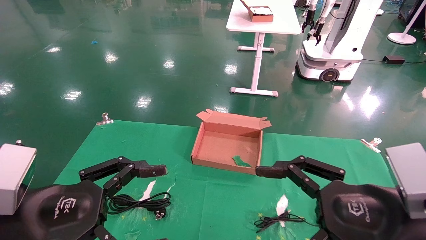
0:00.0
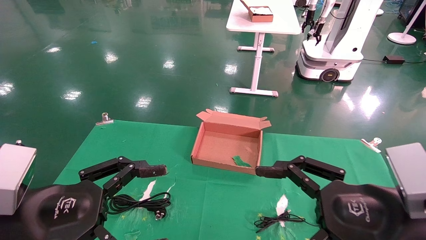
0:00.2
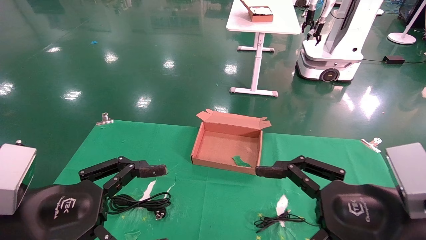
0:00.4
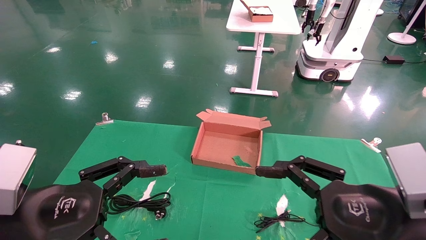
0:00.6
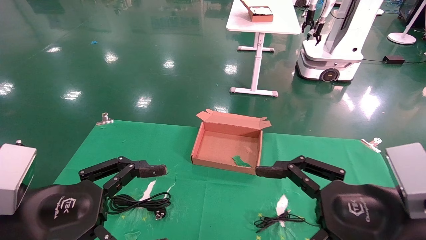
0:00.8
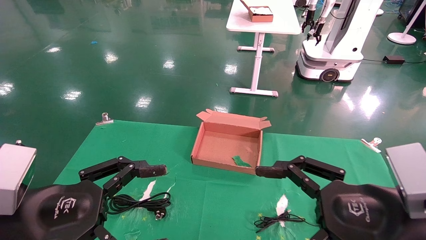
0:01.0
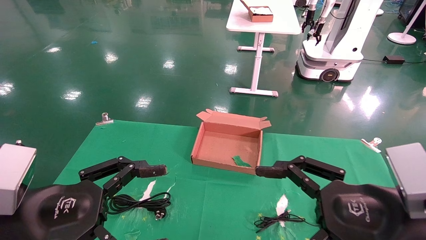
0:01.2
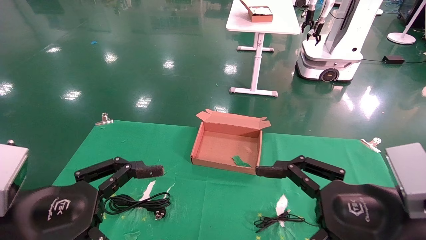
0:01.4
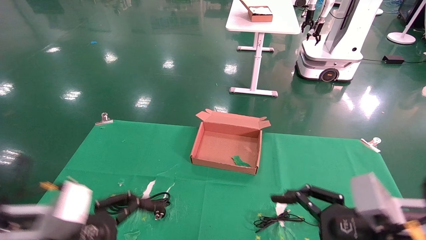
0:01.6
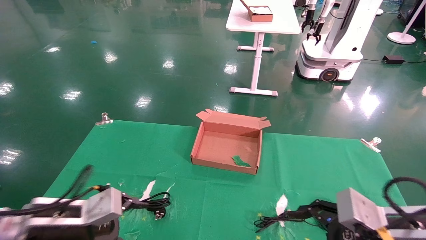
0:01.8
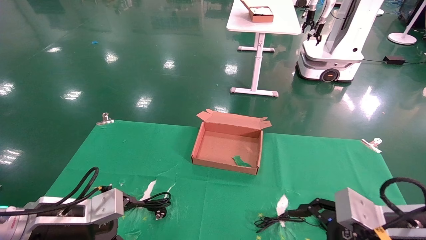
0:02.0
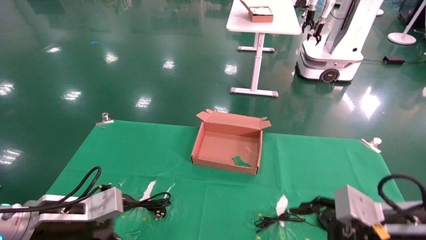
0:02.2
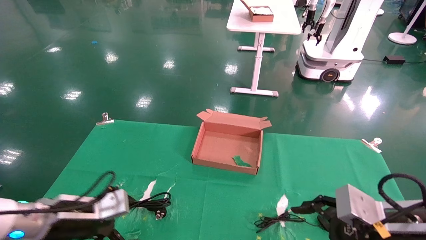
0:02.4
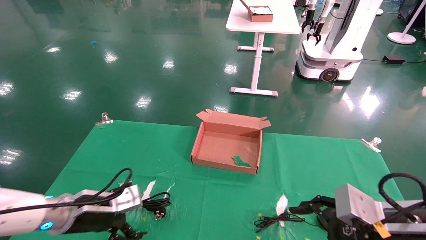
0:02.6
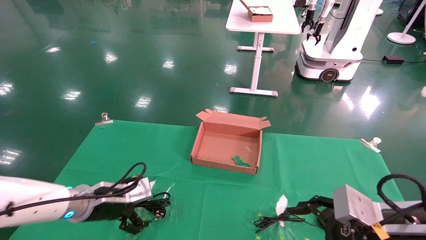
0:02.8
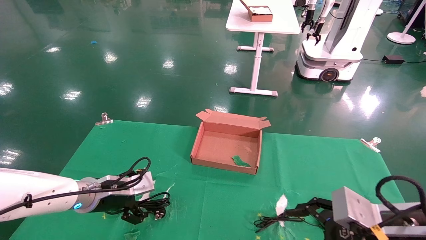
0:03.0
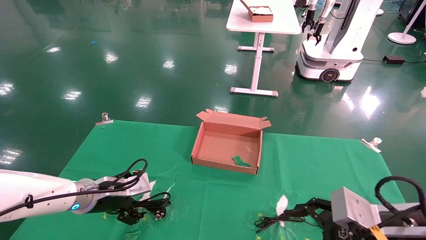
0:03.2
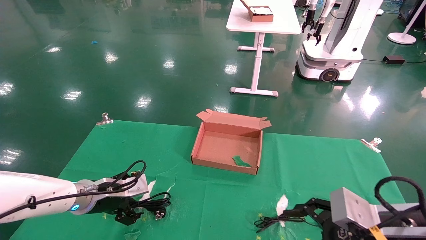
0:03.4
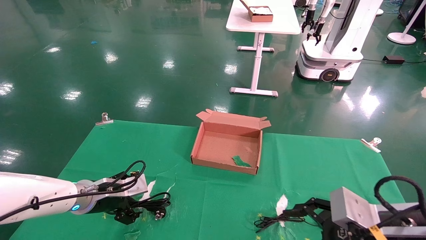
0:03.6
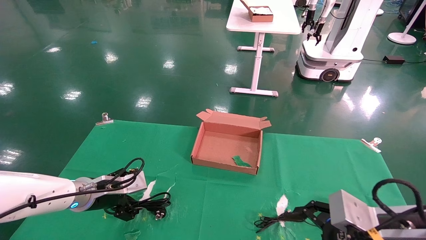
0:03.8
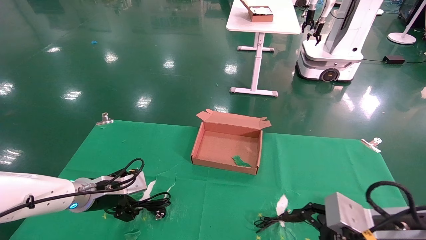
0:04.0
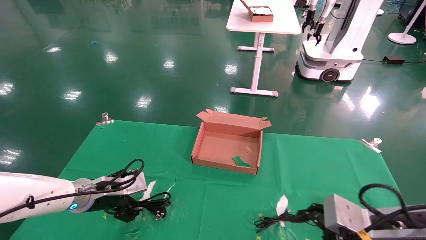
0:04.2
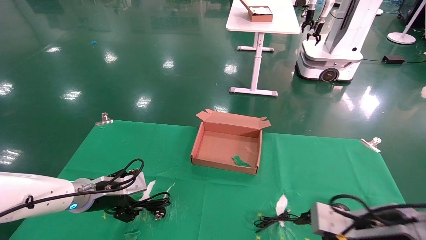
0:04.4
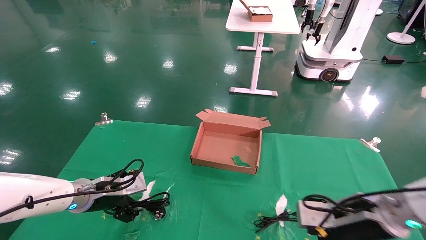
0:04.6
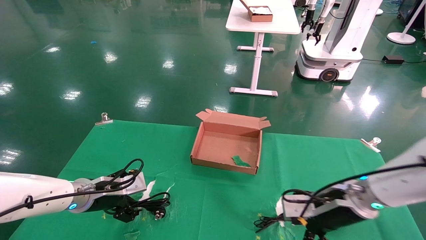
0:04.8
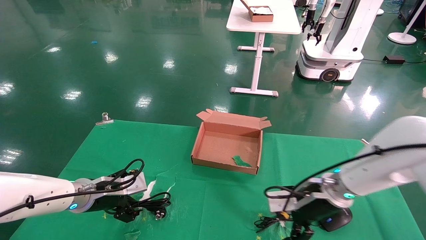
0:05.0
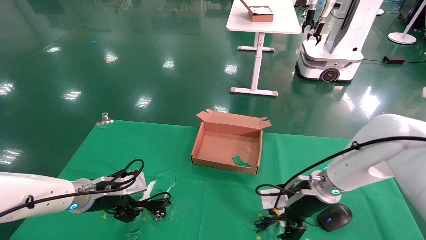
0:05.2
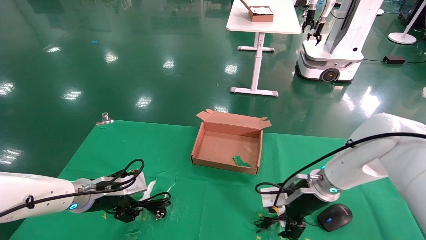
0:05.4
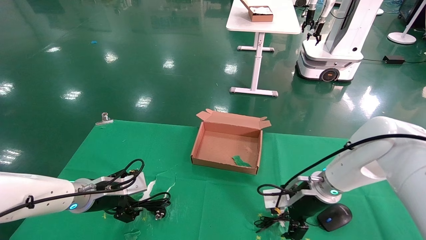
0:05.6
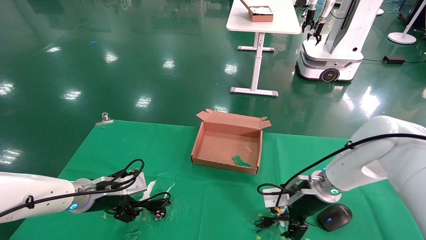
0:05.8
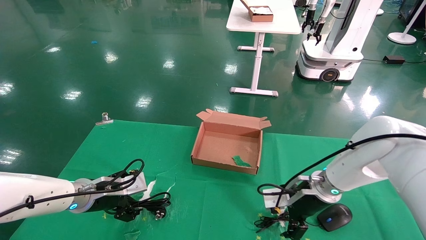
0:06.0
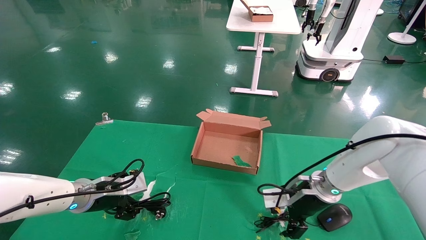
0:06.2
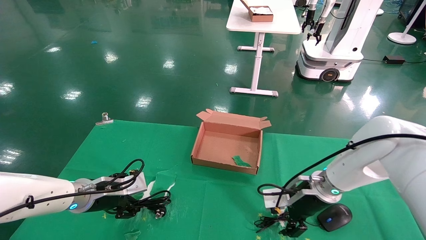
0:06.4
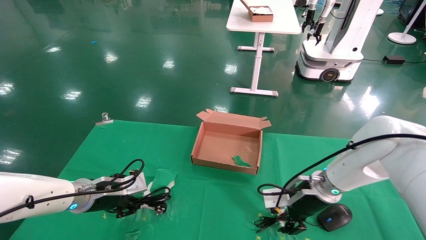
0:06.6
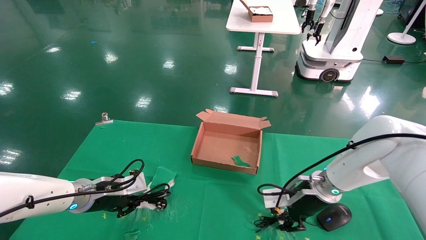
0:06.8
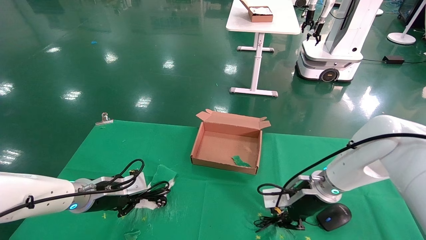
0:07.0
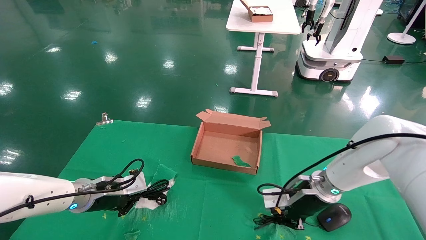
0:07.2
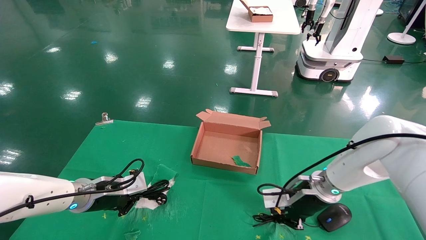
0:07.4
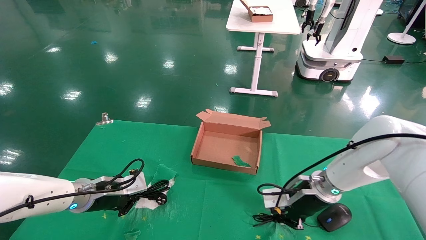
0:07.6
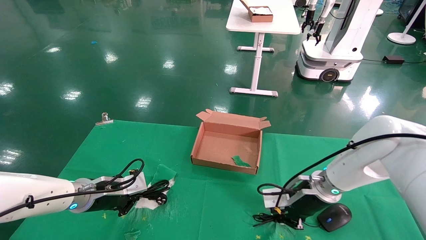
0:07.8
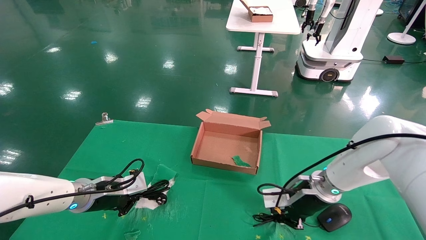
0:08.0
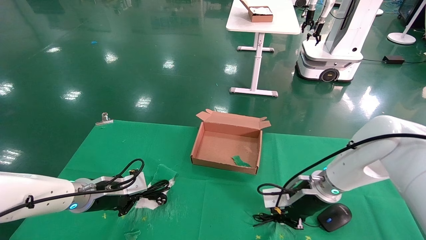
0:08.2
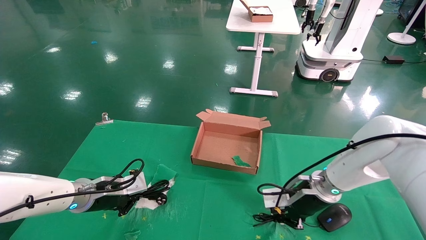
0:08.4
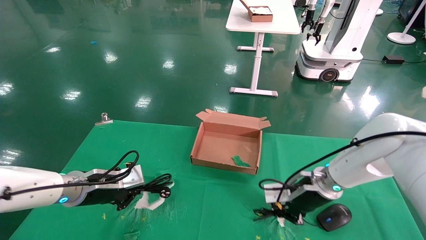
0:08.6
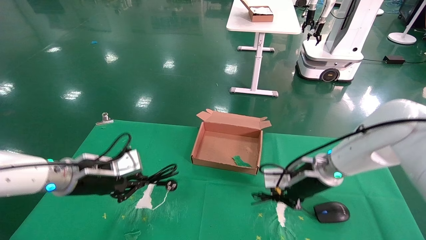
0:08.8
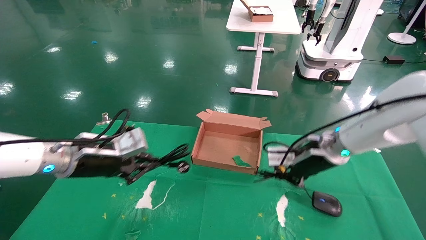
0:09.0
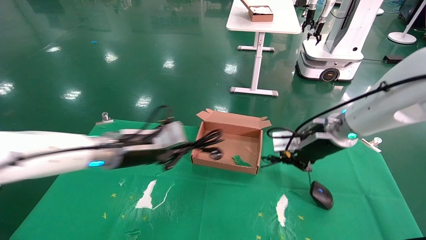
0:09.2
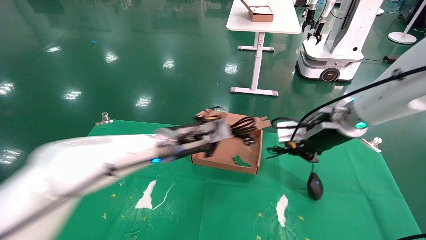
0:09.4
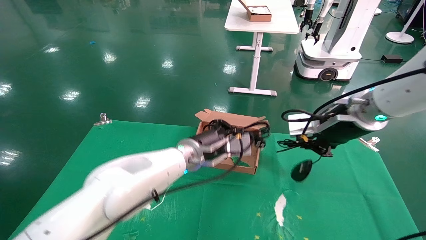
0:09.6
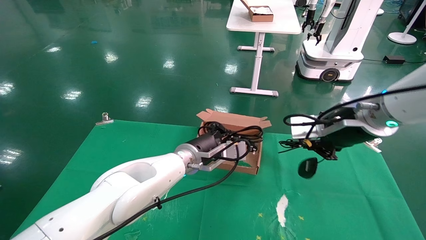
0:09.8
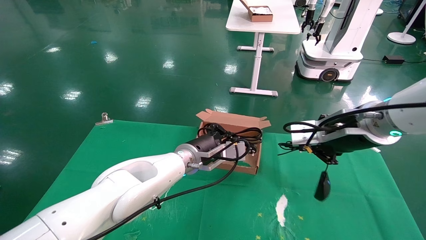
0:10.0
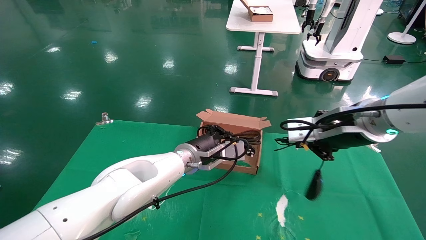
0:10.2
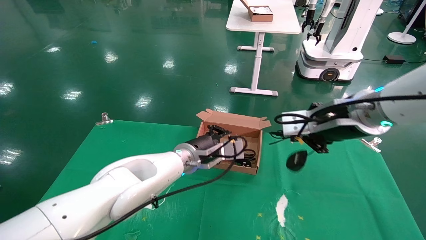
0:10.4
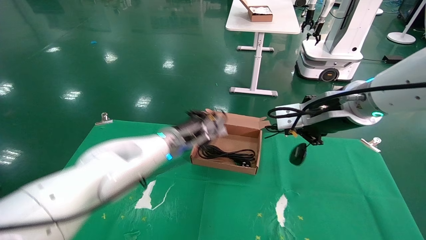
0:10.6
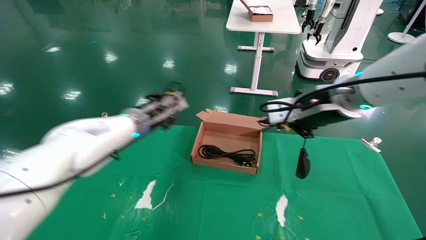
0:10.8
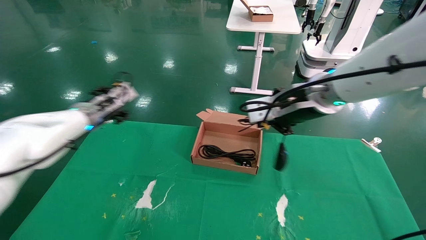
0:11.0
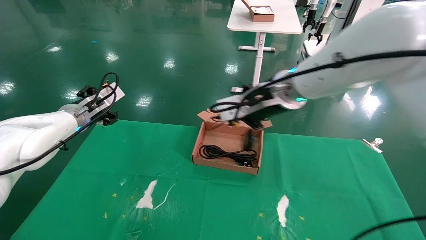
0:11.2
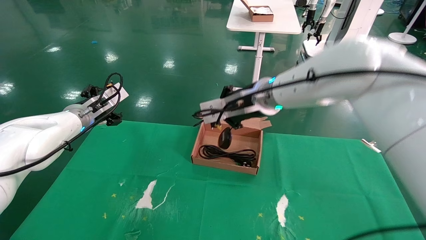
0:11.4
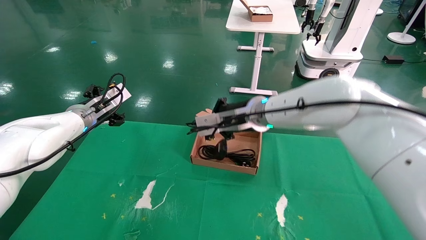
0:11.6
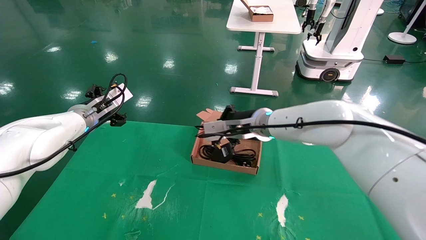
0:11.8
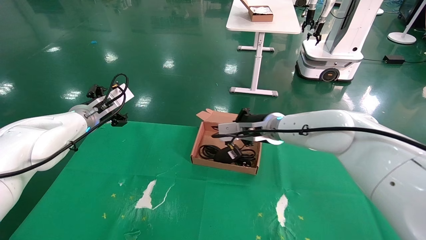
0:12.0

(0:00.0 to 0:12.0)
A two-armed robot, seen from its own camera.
Step, 0:01.6 - 0:06.4: Grab and lift both the mouse and power cord from the accessory packaging area at the same time.
0:00.0 - 0:01.6: The left gripper heads downward, covering approximately 5 cm.
0:01.6 - 0:03.0: The left gripper goes some 15 cm forward.
0:03.0 - 0:04.4: The right gripper travels forward by roughly 5 cm.
0:04.4 - 0:06.0: The right gripper heads forward and to the left, covering roughly 15 cm.
0:06.0 - 0:07.6: The right gripper closes its fingers, while the left gripper closes.
0:07.6 - 0:09.0: The two grippers go approximately 10 cm upward.
0:09.0 - 0:10.4: The left gripper goes about 20 cm to the right and forward; the right gripper heads upward and backward, covering some 15 cm.
0:10.4 - 0:12.0: The right gripper shifts approximately 20 cm forward, to the left and downward, while the left gripper moves to the left, approximately 25 cm, and opens.

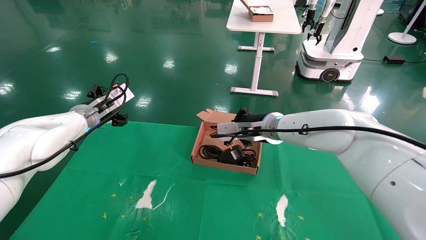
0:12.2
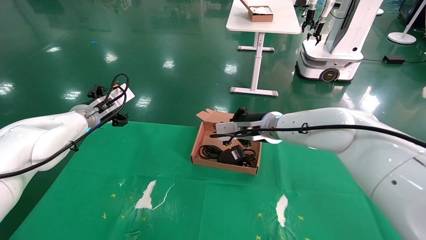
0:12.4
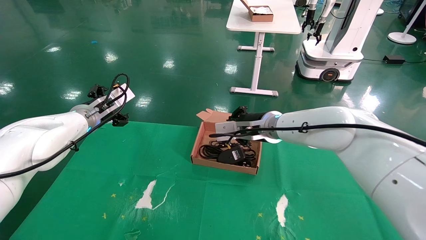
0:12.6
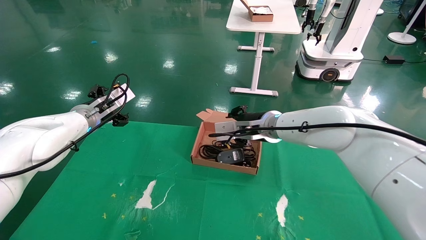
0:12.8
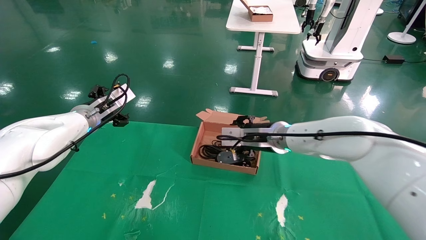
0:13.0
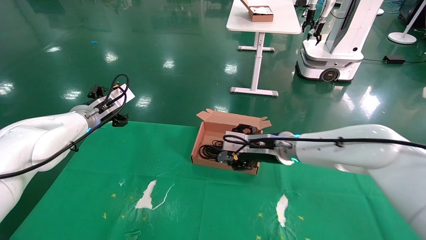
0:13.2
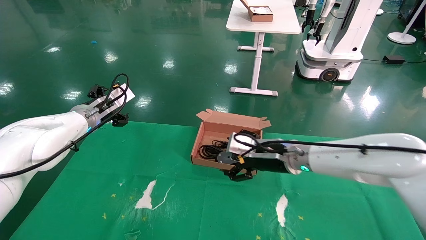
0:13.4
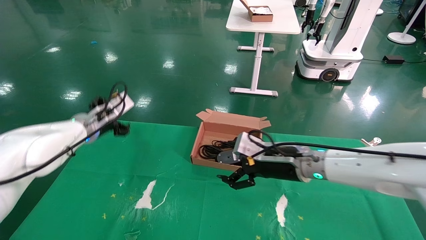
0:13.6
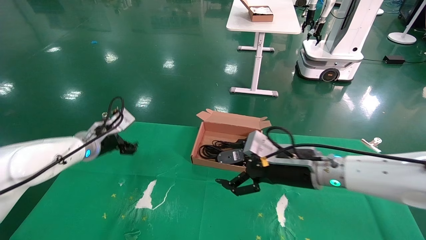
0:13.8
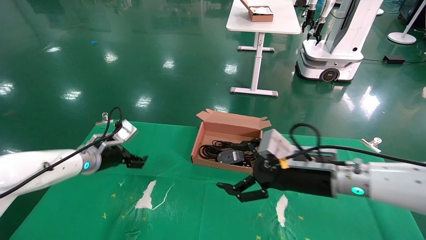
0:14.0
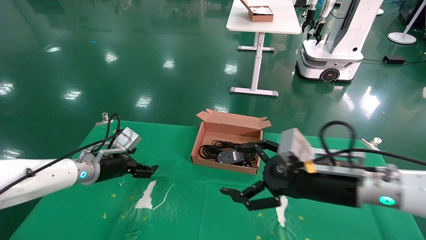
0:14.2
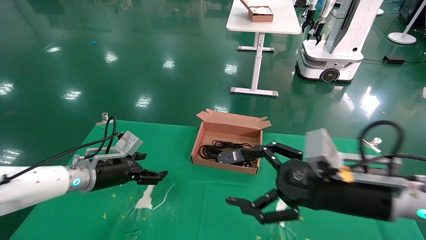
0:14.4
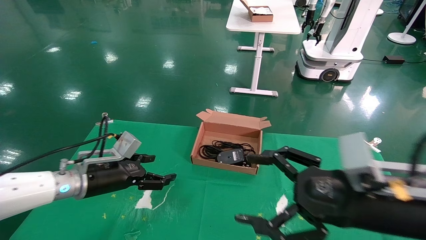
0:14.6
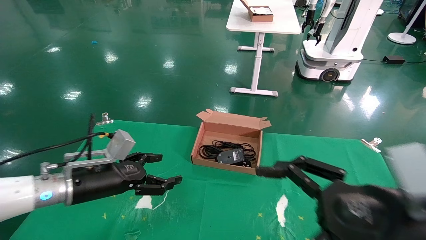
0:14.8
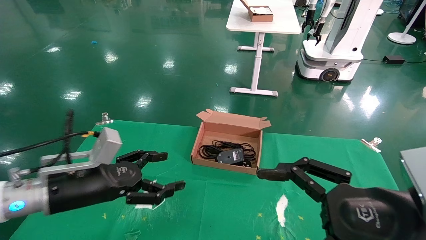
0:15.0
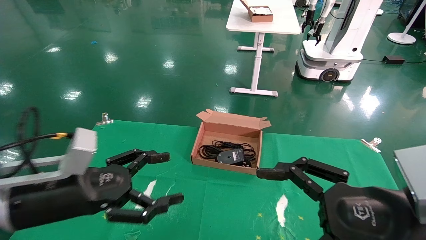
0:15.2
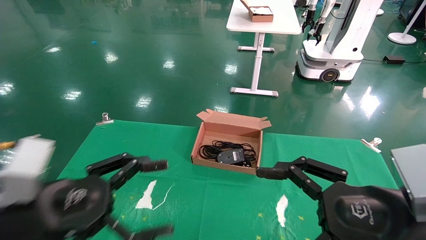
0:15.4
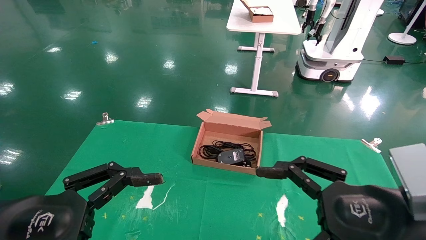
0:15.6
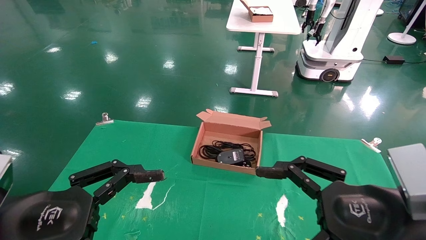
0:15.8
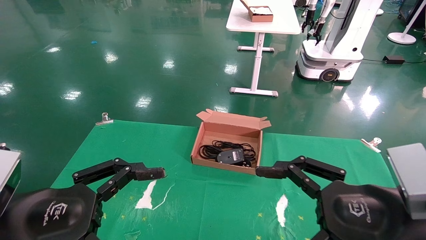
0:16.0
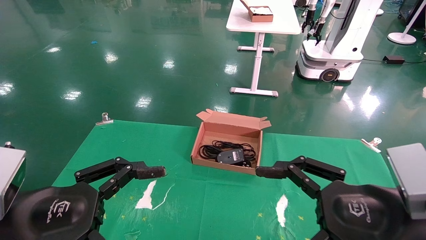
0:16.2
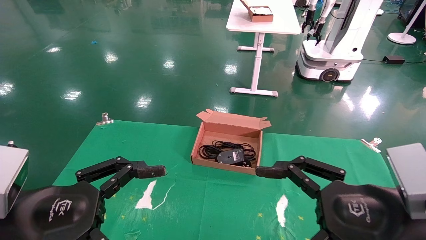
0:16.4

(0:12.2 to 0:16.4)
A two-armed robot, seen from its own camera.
0:12.2 - 0:13.6: The right gripper heads backward and downward, covering roughly 10 cm, and opens.
0:13.6 - 0:15.0: The left gripper shifts about 20 cm backward; the right gripper travels backward and to the right by approximately 25 cm.
0:15.0 - 0:16.4: The left gripper moves backward, some 10 cm.
